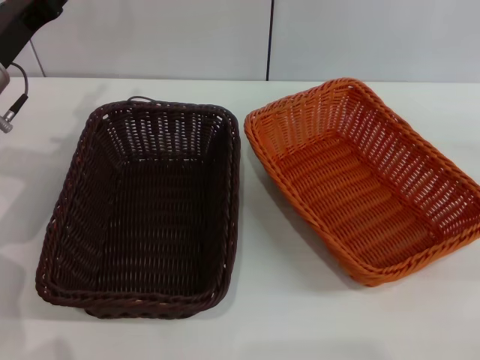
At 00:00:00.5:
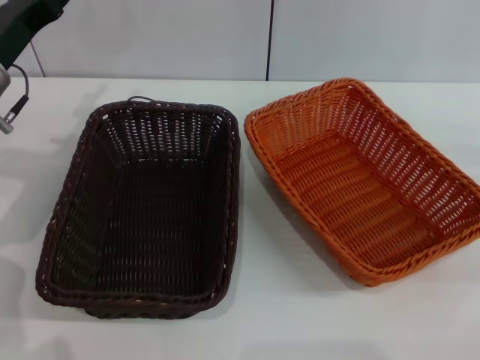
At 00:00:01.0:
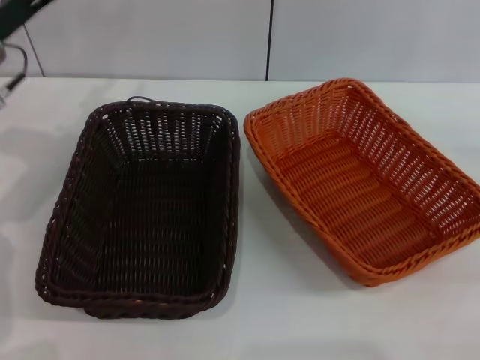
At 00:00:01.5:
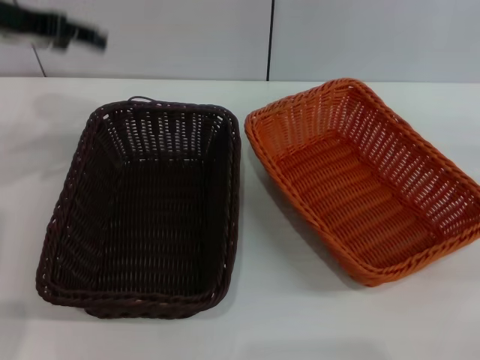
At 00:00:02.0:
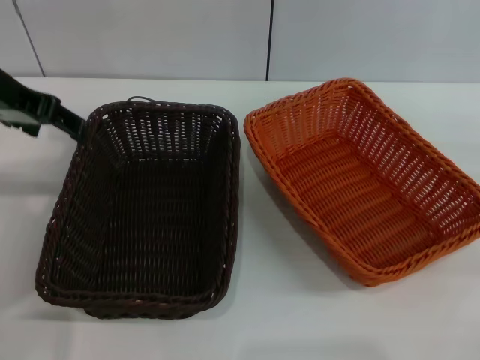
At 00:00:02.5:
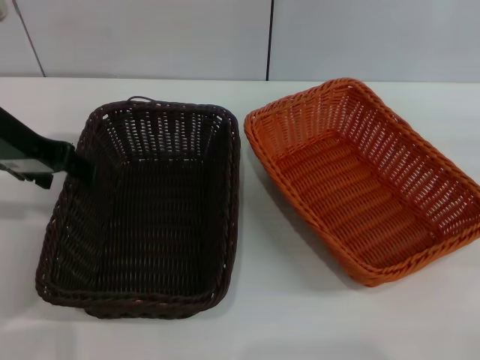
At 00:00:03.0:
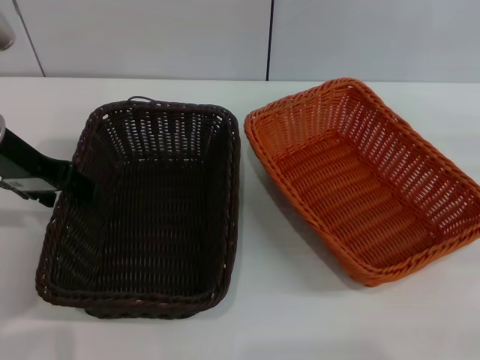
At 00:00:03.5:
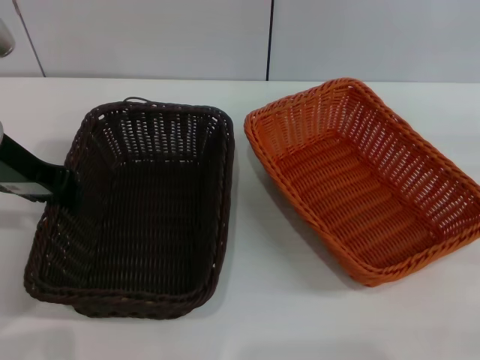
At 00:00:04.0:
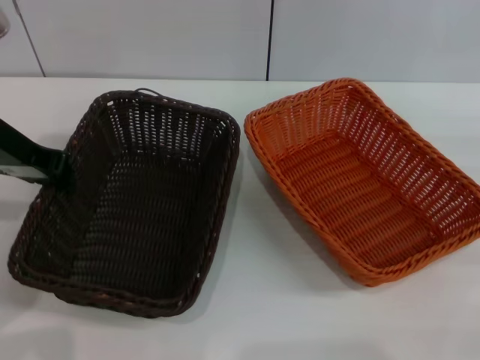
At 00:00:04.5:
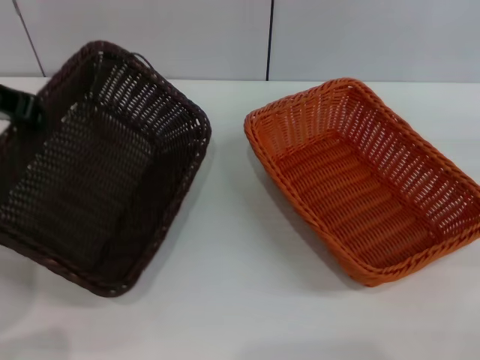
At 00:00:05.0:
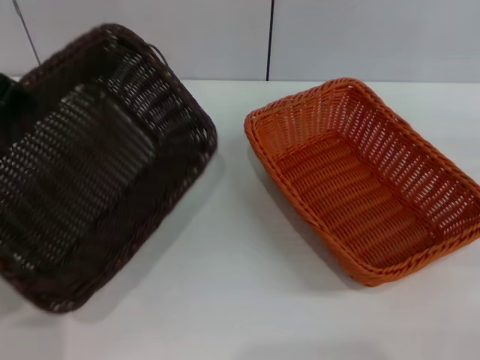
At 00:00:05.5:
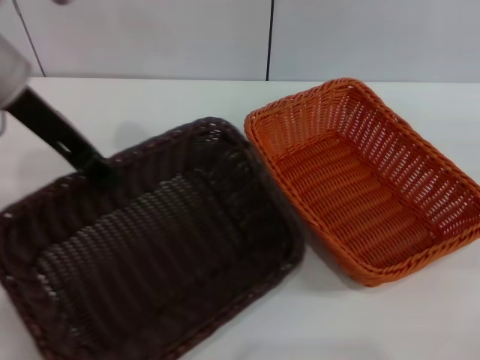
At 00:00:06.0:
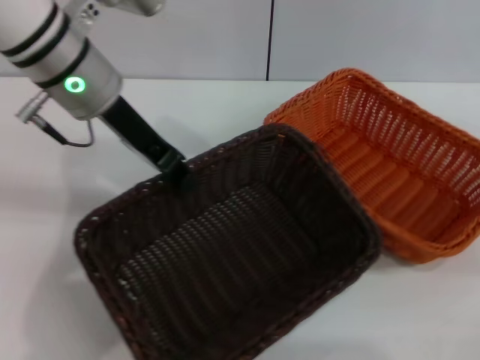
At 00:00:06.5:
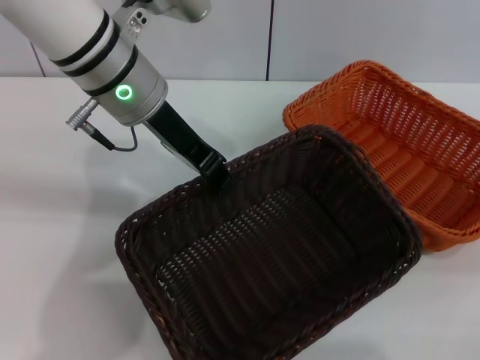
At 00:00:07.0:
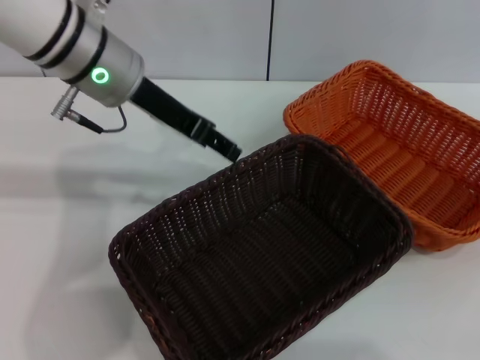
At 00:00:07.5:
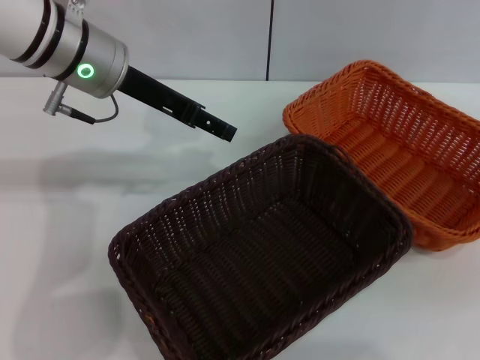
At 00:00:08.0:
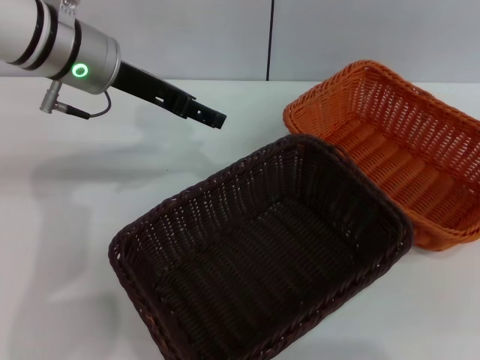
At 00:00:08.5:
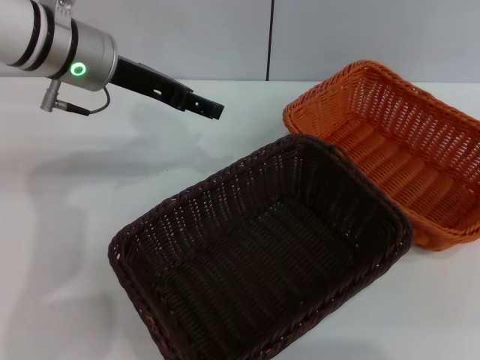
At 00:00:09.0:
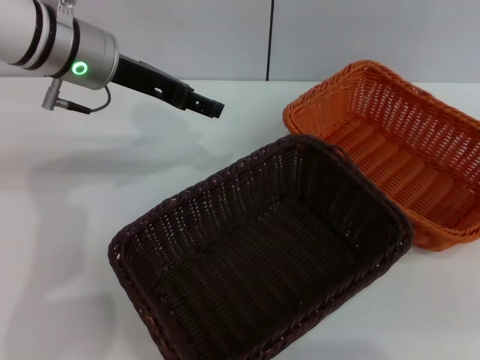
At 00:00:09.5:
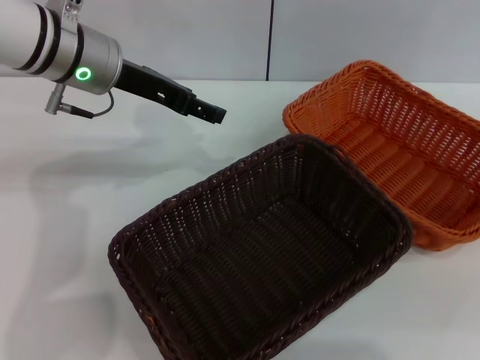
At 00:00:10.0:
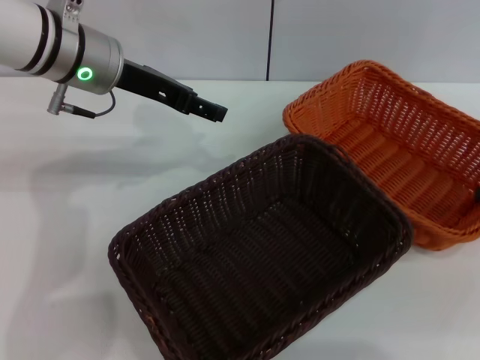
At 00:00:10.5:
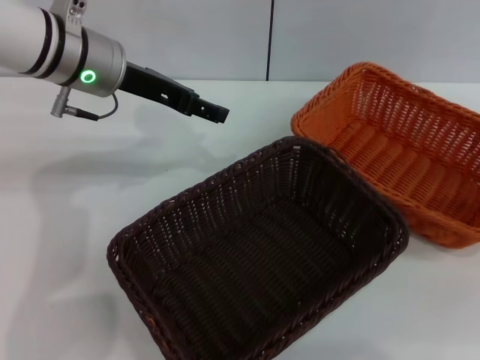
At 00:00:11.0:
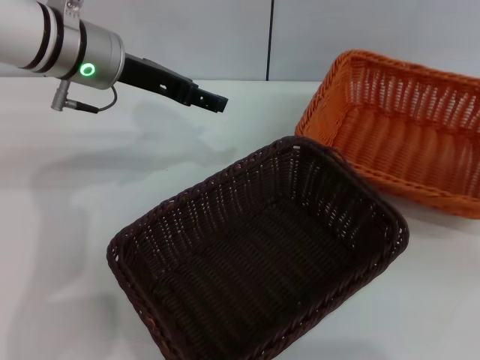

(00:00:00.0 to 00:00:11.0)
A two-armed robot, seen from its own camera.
Step, 00:00:00.0 - 00:00:04.0: Pick up the dark basket with the left gripper.
Step, 00:00:04.5 - 00:00:06.5: Place the dark basket in the center of view with the left gripper.
00:00:00.0 - 00:00:02.0: The left gripper heads upward, covering about 10 cm.
00:00:02.0 - 00:00:03.5: The left gripper shifts about 5 cm downward, and closes up.
00:00:03.5 - 00:00:05.5: The left gripper shifts approximately 5 cm upward.
00:00:05.5 - 00:00:07.5: The left gripper shifts approximately 5 cm to the right, and opens. The right gripper is displaced upward by about 10 cm.
00:00:09.0 - 00:00:11.0: The right gripper closes up.

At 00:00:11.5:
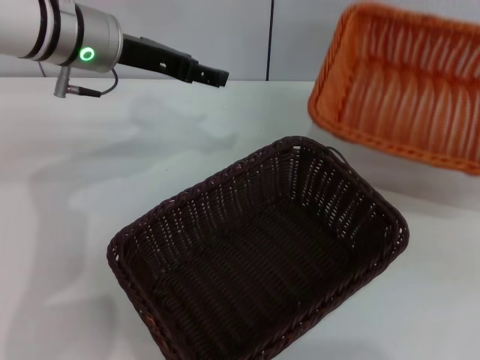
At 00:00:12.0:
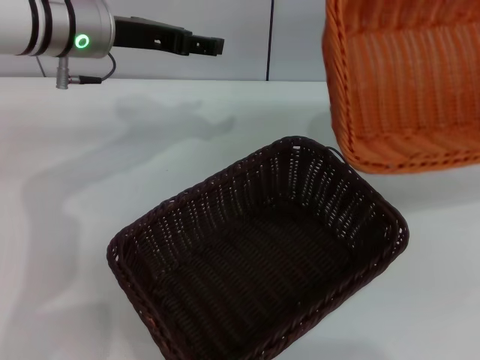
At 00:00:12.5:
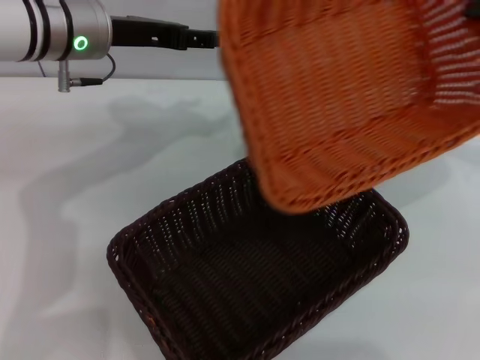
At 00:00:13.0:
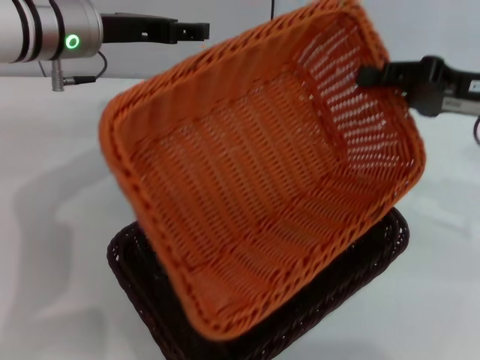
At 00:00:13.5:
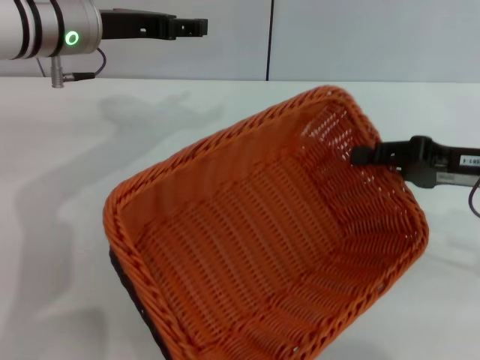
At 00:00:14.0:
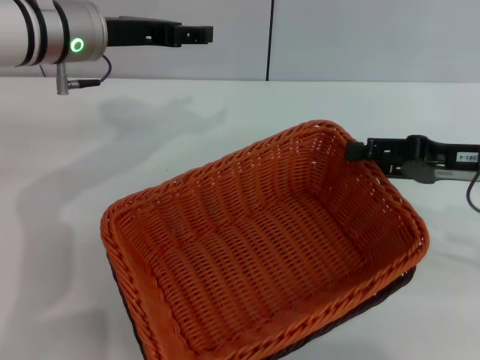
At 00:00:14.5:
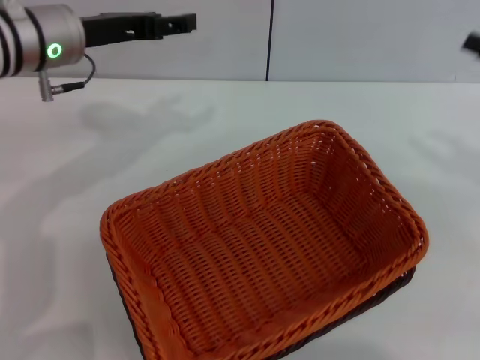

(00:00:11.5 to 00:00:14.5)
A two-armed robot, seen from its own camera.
Step, 00:00:11.5 - 00:00:13.5: Place the light basket on the dark basket with the right gripper.
00:00:11.5 - 00:00:13.0: The right gripper heads to the left, covering about 15 cm.
00:00:13.0 - 00:00:14.5: The right gripper travels to the right by approximately 10 cm, and opens.
